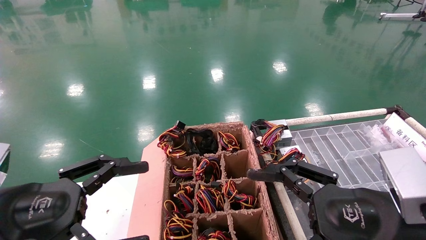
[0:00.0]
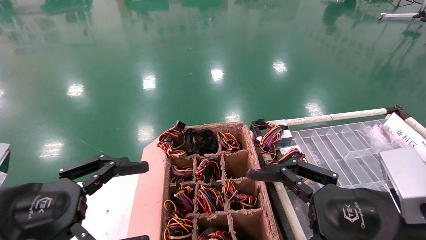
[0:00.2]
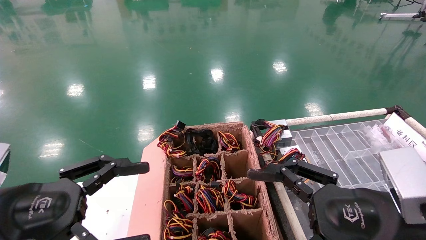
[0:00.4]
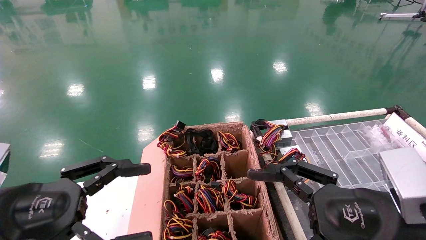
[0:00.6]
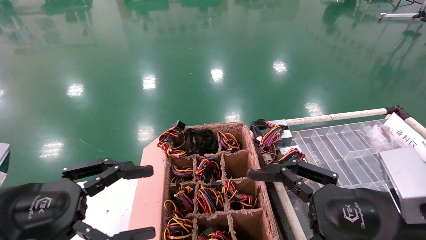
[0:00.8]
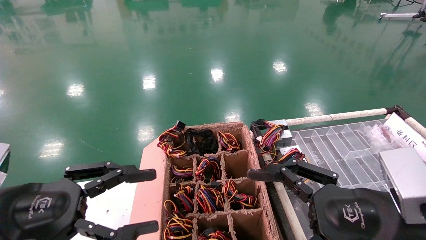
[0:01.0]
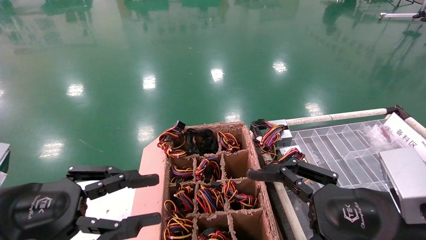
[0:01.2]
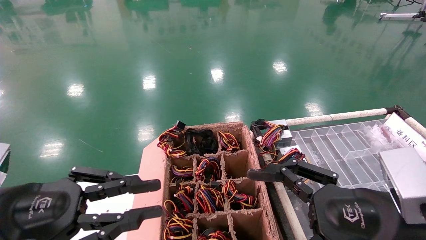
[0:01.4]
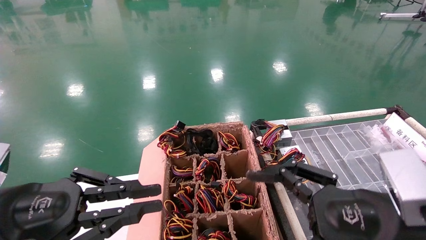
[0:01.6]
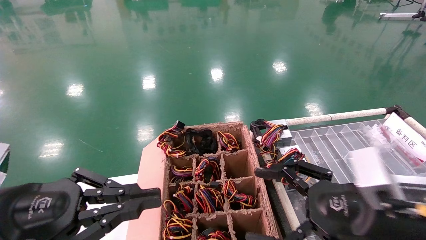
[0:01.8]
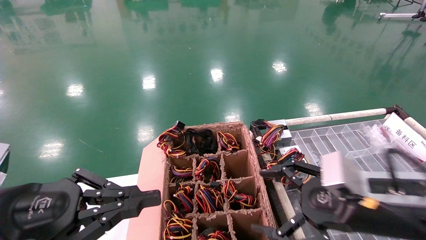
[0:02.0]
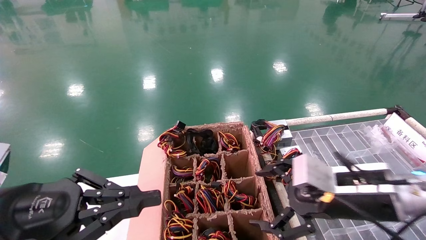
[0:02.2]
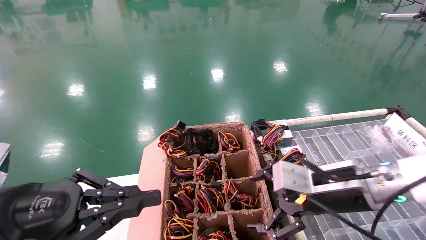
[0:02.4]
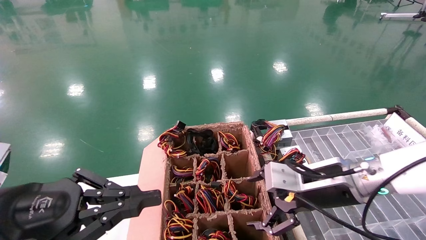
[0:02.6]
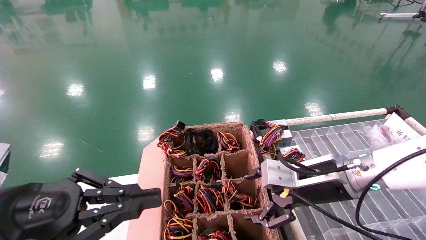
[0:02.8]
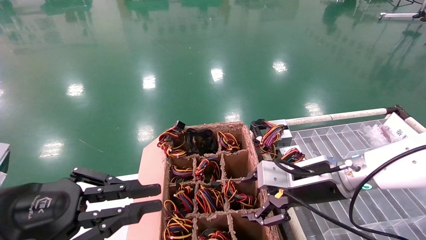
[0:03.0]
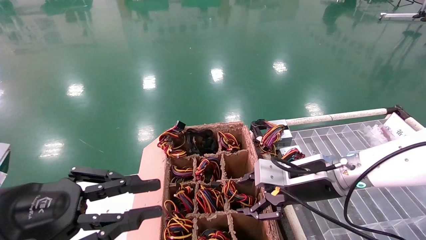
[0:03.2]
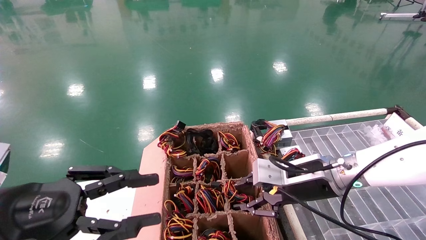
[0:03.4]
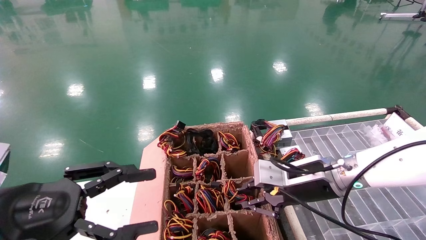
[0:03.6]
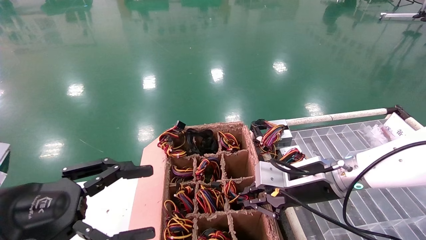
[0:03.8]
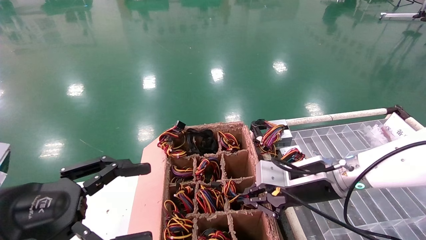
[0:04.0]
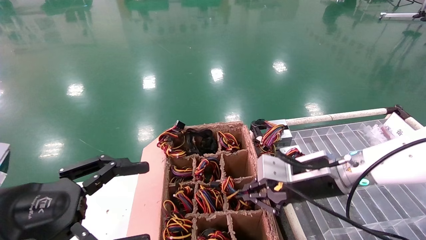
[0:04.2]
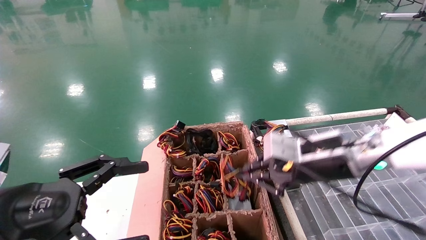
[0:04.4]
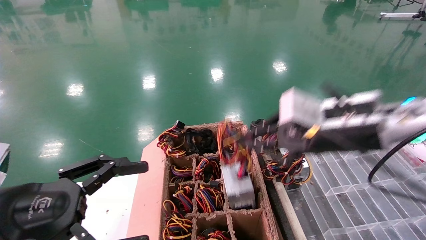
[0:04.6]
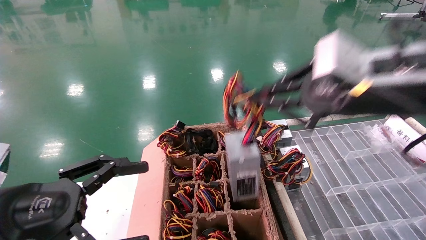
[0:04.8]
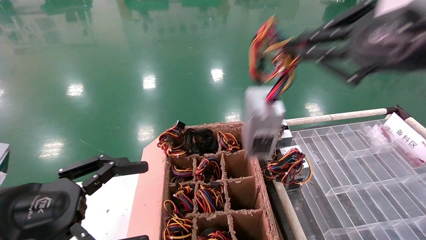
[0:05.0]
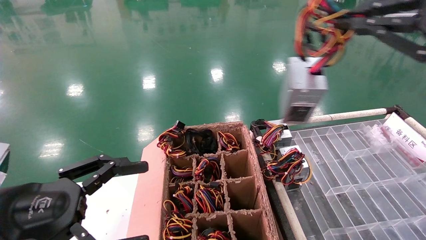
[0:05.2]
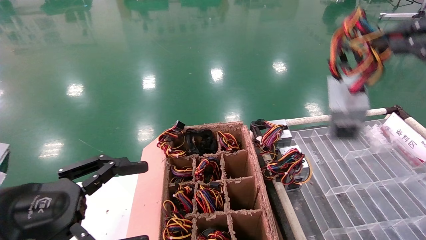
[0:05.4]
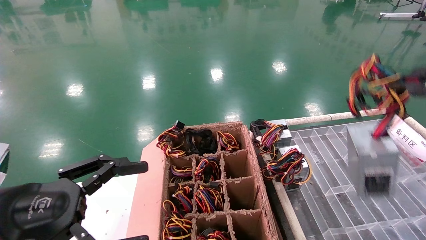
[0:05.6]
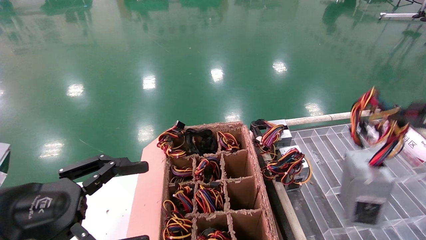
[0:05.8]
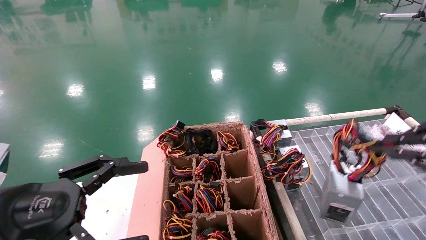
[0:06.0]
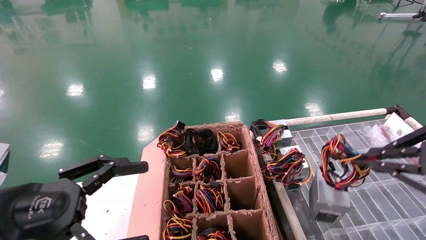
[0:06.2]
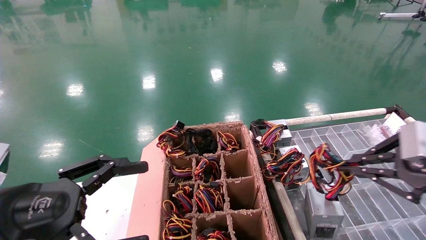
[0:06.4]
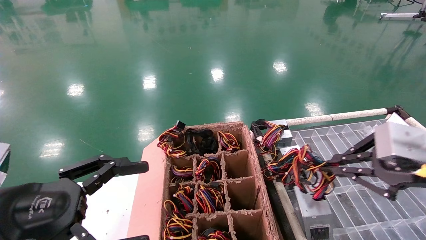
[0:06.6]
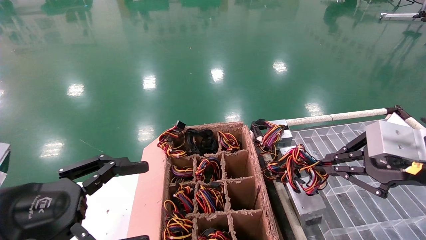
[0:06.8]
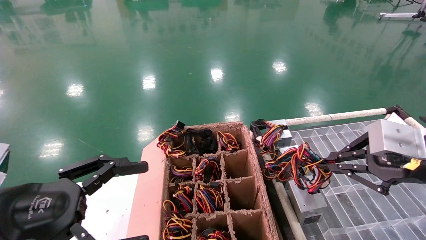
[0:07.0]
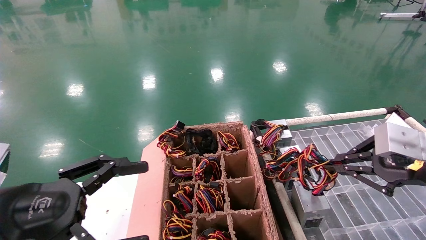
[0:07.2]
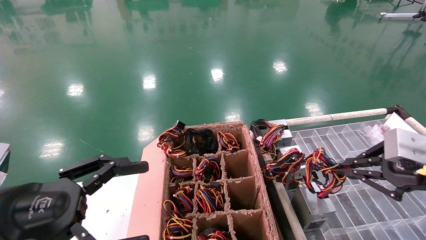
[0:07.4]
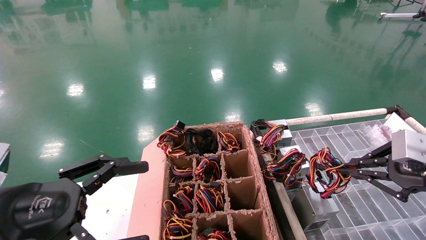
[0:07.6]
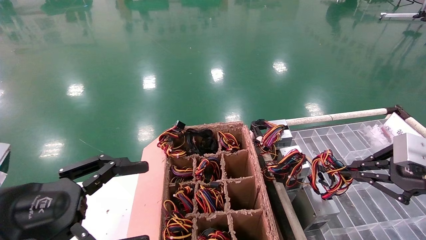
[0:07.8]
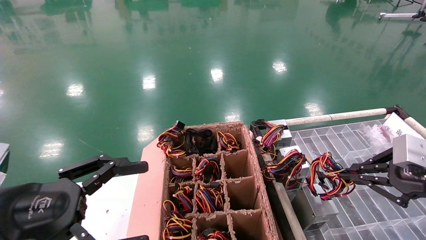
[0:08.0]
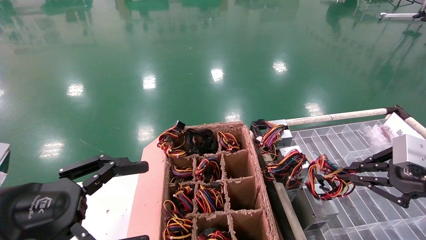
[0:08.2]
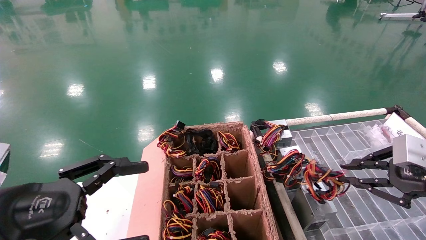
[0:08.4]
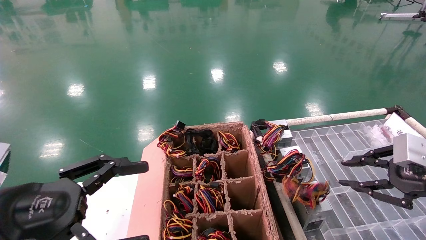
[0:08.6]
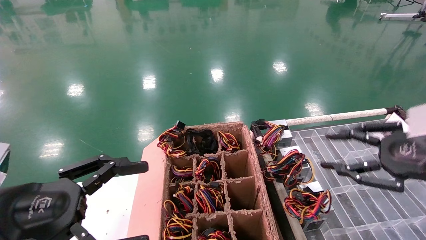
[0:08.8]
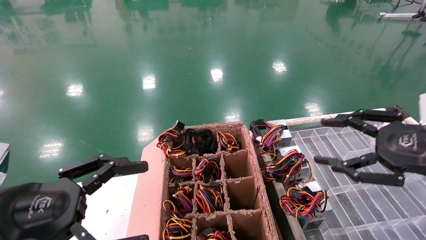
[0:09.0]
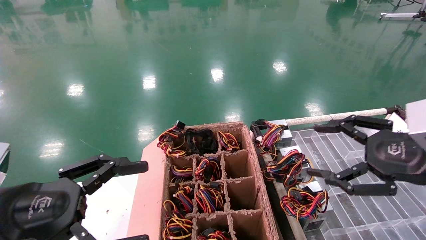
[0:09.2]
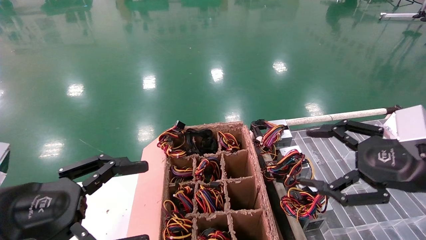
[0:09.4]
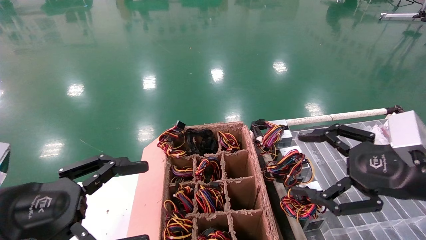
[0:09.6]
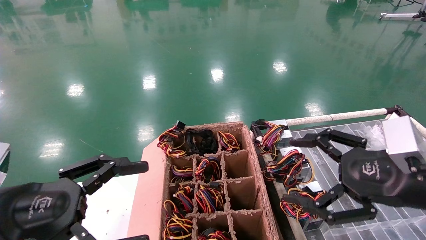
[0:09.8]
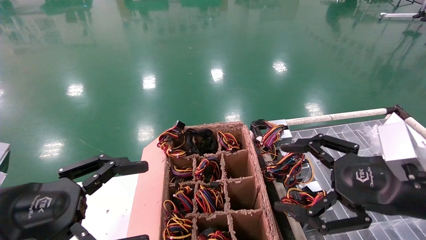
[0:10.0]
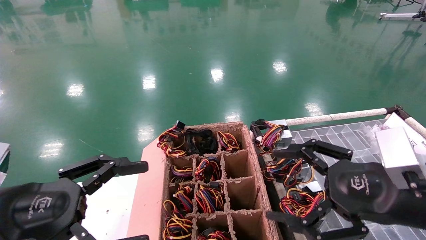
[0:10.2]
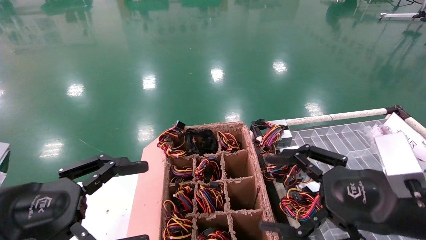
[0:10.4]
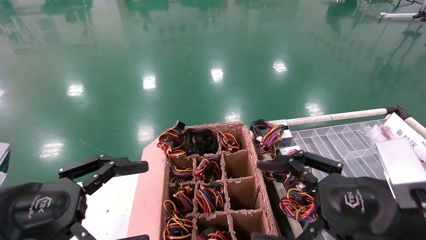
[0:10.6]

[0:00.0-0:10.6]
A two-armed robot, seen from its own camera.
Step, 0:02.0 to 0:04.0: Grab and lift the power supply from the large box.
Step, 0:04.2 to 0:08.4: Place the power supply on the operating table.
0:00.0 to 0:01.6: The left gripper closes its fingers.
0:01.6 to 0:03.0: The right gripper is displaced forward by some 15 cm.
0:03.0 to 0:04.6: The right gripper goes about 15 cm upward and backward, and closes; the left gripper opens its fingers.
0:04.6 to 0:06.0: The right gripper moves to the right and backward, roughly 20 cm.
0:06.0 to 0:07.6: The right gripper shifts roughly 10 cm forward and downward.
0:07.6 to 0:09.0: The right gripper opens its fingers.
0:09.0 to 0:10.6: The right gripper shifts roughly 10 cm to the left, and opens up.
